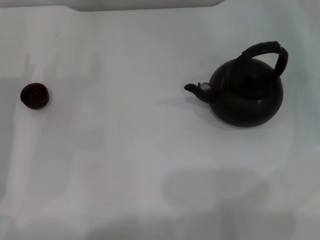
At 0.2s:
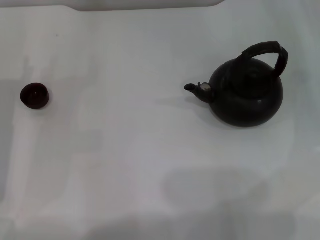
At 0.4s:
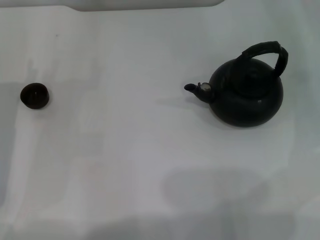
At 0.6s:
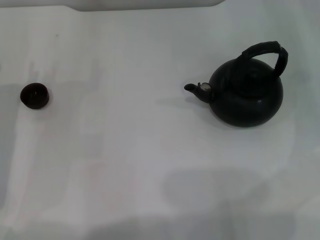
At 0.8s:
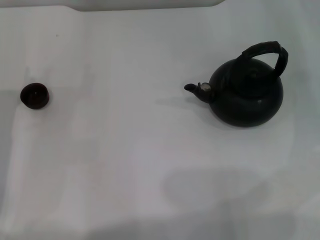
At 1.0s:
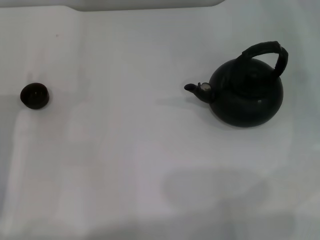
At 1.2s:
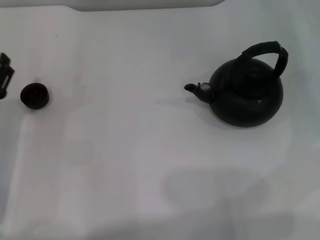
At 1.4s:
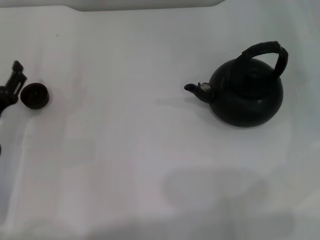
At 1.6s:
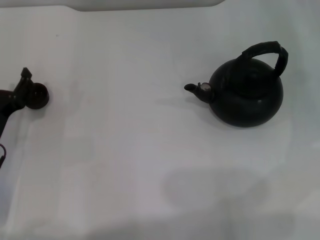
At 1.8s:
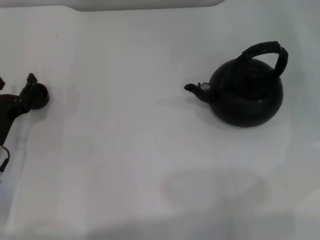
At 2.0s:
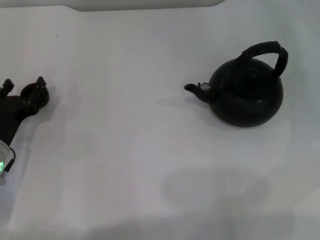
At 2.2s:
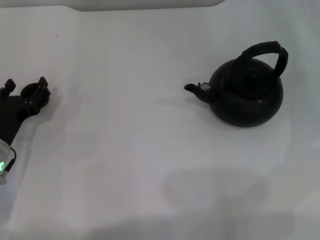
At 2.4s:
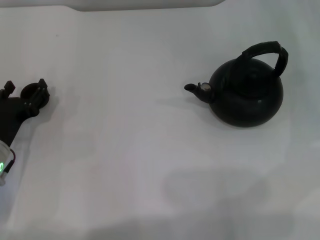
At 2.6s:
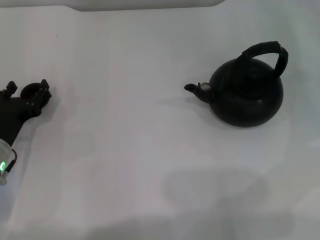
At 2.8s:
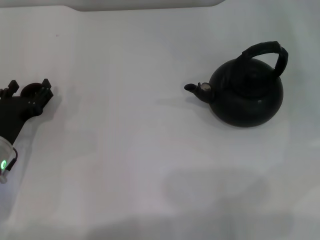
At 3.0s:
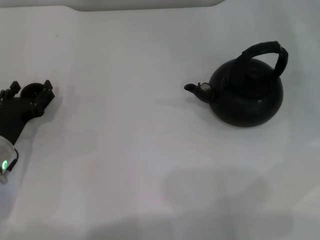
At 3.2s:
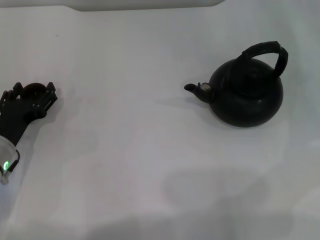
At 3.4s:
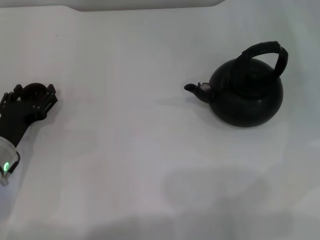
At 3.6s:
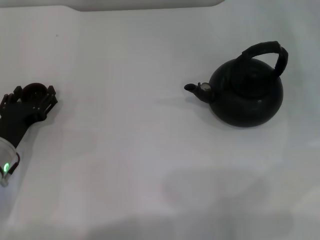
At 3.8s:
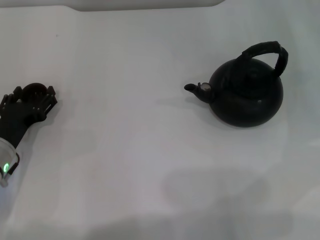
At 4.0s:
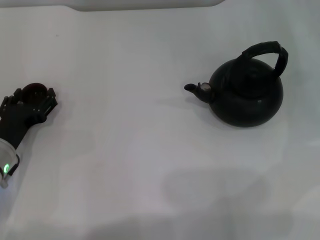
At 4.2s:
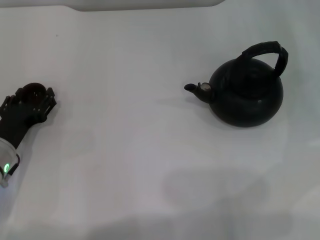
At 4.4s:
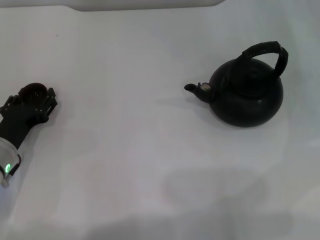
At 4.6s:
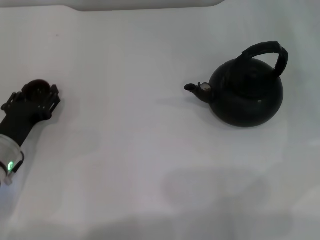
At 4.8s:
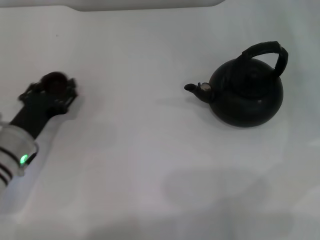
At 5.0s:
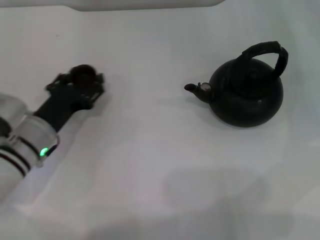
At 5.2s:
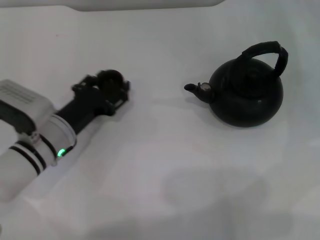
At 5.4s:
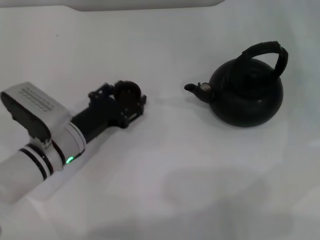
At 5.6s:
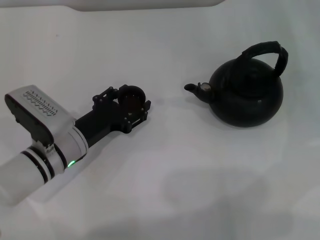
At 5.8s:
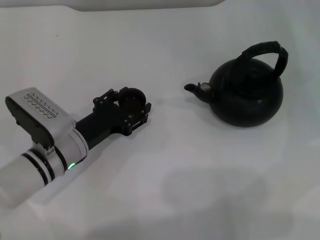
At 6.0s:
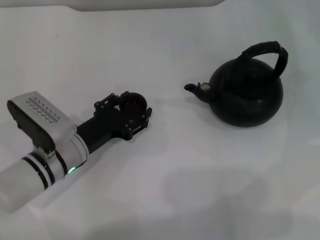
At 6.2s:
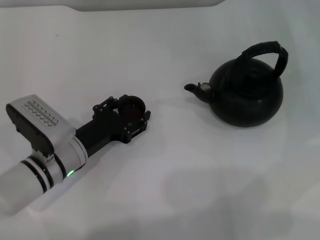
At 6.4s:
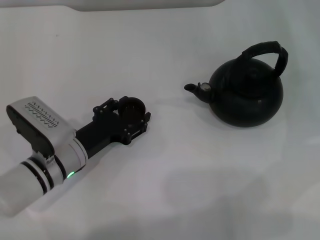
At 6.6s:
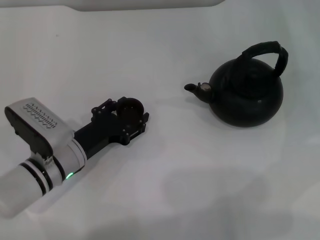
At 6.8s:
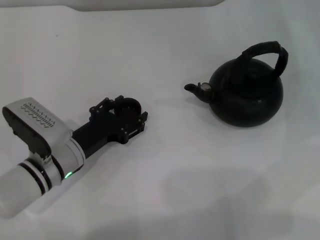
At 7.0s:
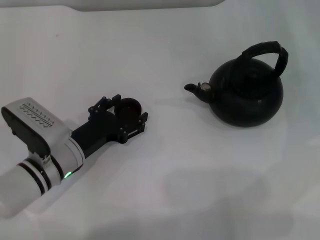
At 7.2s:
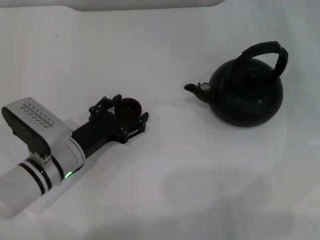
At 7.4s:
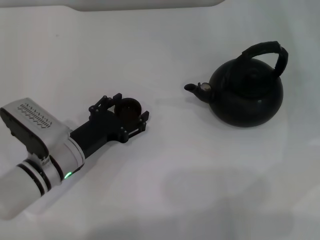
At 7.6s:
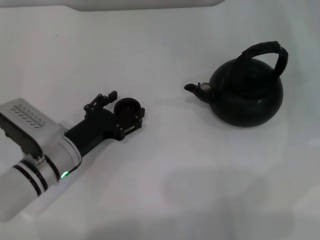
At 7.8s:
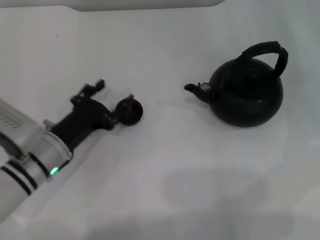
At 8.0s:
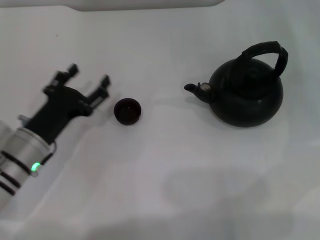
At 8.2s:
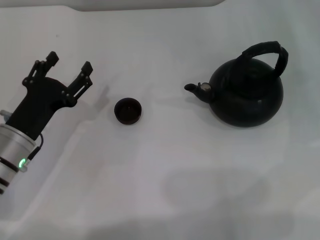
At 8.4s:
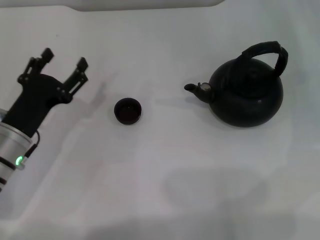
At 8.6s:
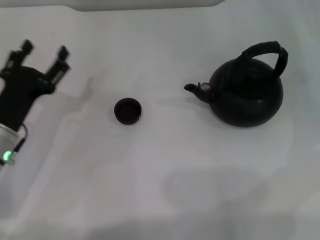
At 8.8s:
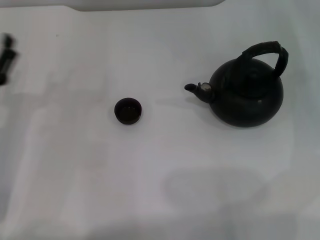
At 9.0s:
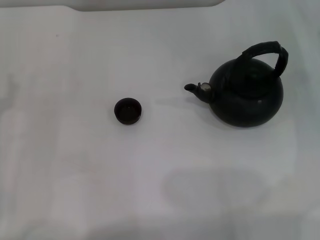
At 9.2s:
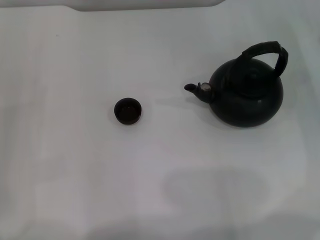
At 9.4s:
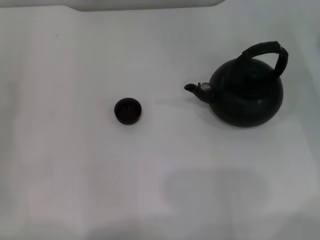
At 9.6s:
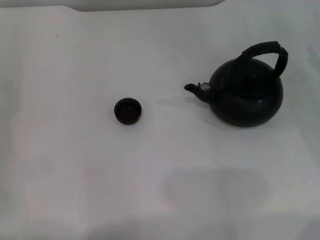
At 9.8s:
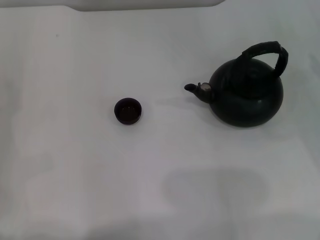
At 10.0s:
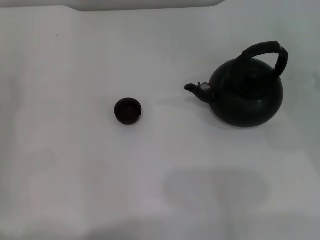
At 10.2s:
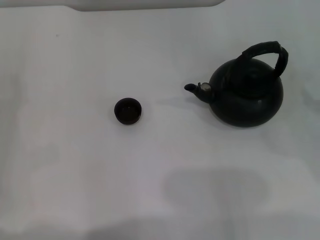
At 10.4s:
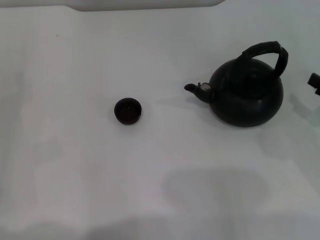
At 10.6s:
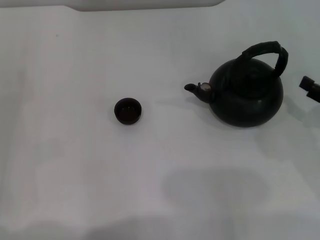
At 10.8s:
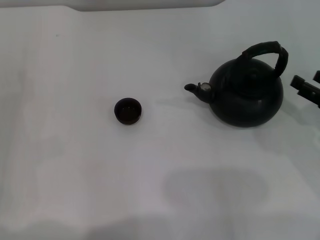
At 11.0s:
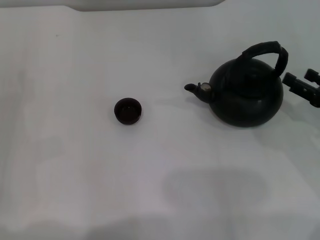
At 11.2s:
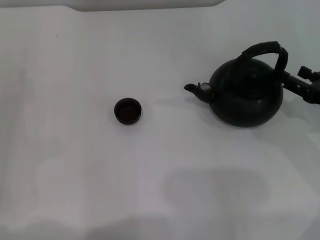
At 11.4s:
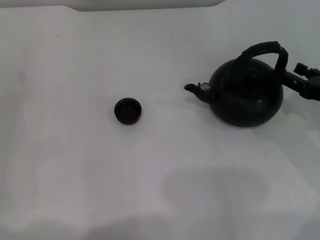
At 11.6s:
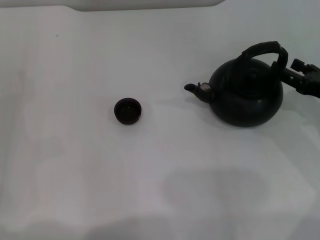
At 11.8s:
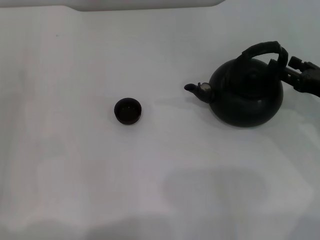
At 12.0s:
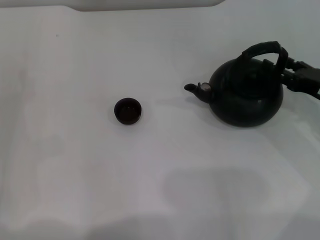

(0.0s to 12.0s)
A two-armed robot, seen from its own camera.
Task of the whole recording: Grasp the handle of the teapot with one hand and pour tea into the teacup.
Step, 0.0s - 4.6s: Pick up the teacup with the left gripper.
Step, 4.8s - 8.2s: Place the teacup in the center of view with the left gripper.
0.0s - 1.6s: The left gripper shifts by roughly 5 cm.
1.6s - 3.0s: The grippers make only small movements.
3.0s - 4.4s: The left gripper closes up.
4.4s - 6.0s: The left gripper travels to the right by some 10 cm.
6.0s - 7.6s: The left gripper opens its fingers.
7.6s - 9.0s: The left gripper heads to the left, covering some 15 cm.
10.4s - 12.0s: The right gripper is displaced forward by about 5 cm.

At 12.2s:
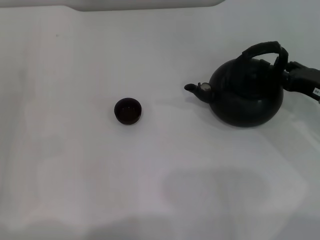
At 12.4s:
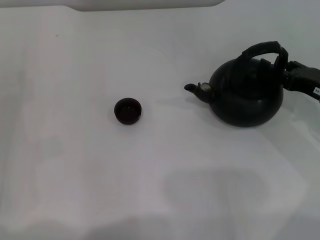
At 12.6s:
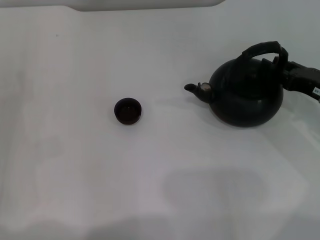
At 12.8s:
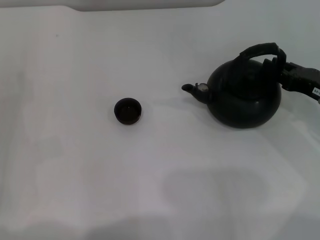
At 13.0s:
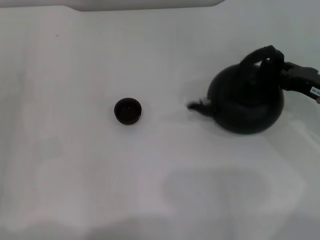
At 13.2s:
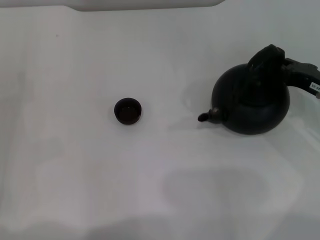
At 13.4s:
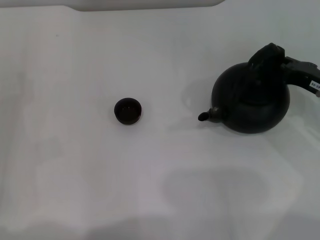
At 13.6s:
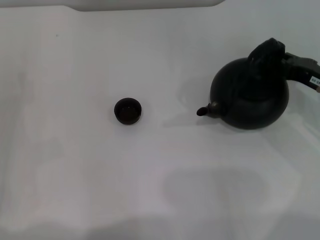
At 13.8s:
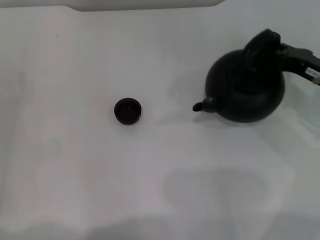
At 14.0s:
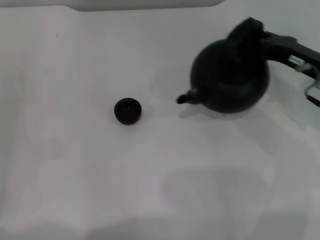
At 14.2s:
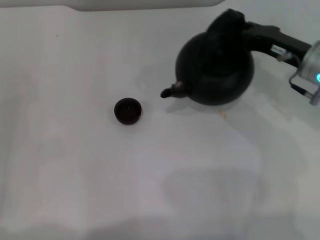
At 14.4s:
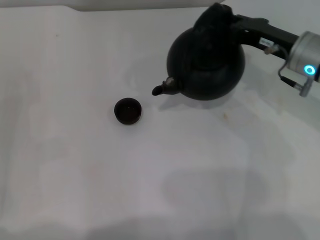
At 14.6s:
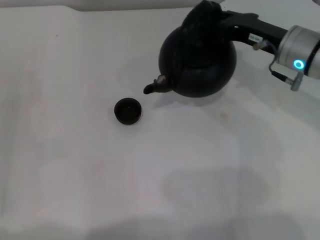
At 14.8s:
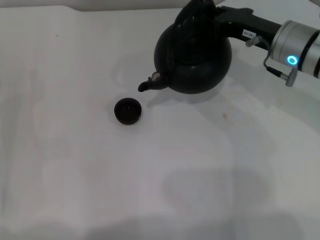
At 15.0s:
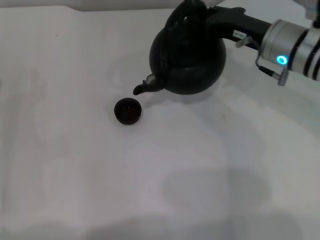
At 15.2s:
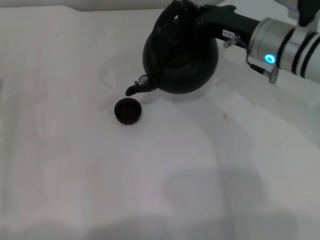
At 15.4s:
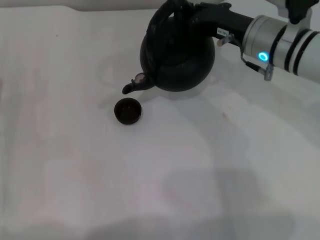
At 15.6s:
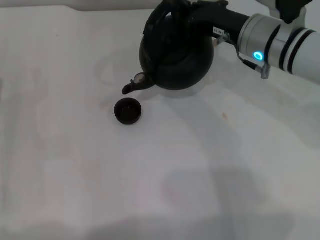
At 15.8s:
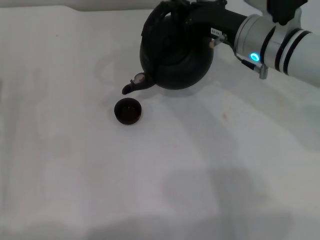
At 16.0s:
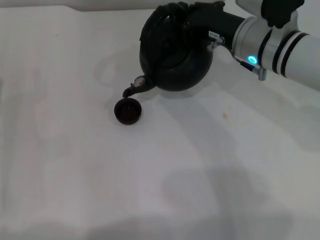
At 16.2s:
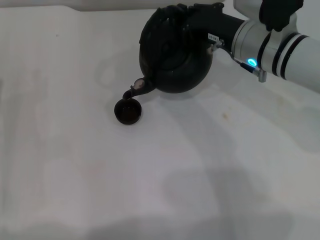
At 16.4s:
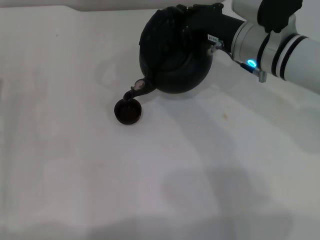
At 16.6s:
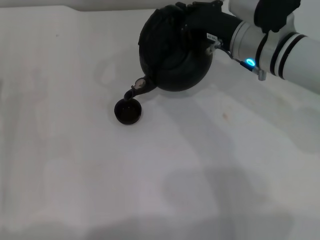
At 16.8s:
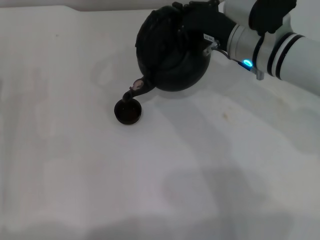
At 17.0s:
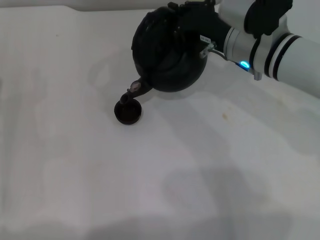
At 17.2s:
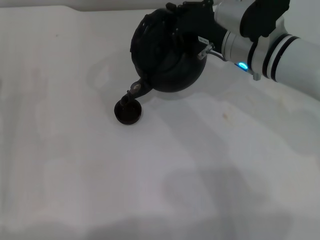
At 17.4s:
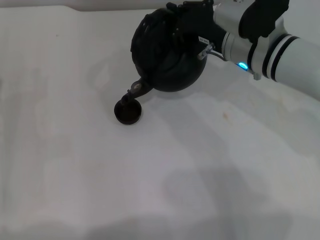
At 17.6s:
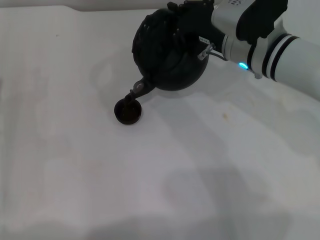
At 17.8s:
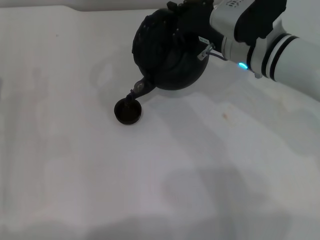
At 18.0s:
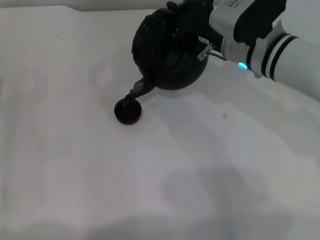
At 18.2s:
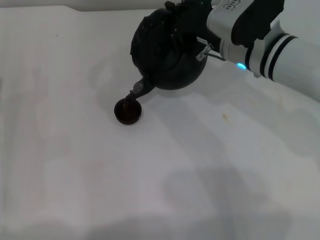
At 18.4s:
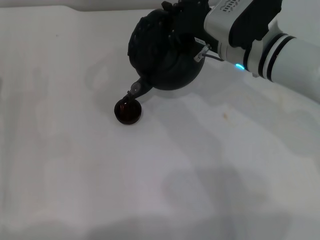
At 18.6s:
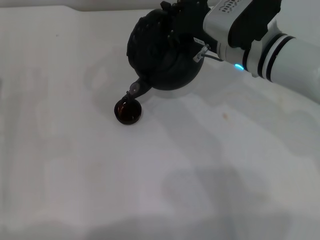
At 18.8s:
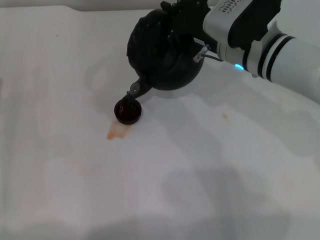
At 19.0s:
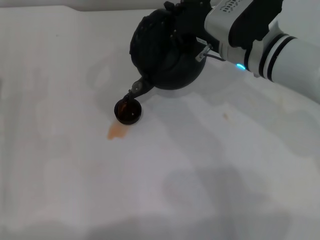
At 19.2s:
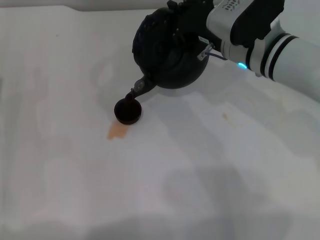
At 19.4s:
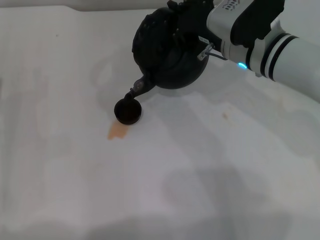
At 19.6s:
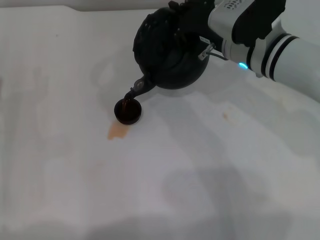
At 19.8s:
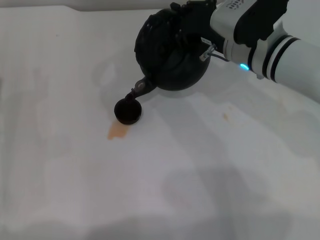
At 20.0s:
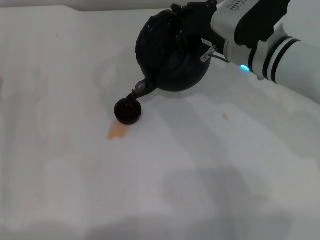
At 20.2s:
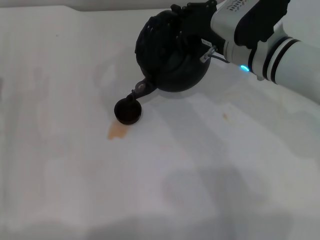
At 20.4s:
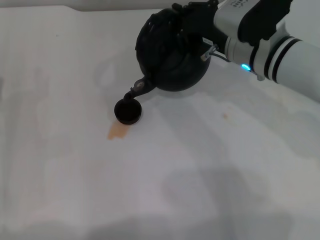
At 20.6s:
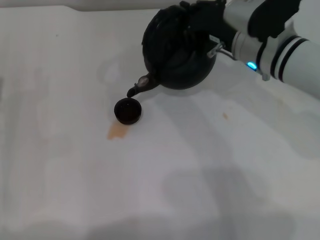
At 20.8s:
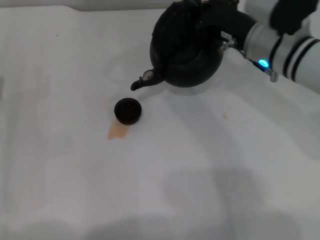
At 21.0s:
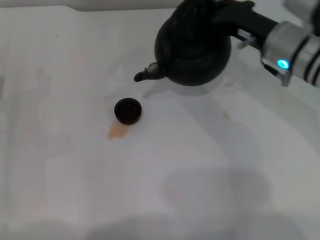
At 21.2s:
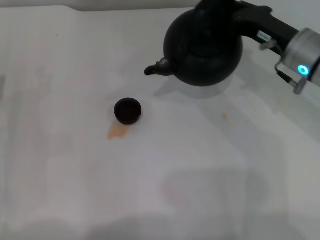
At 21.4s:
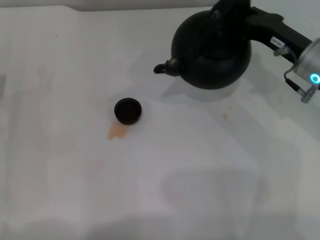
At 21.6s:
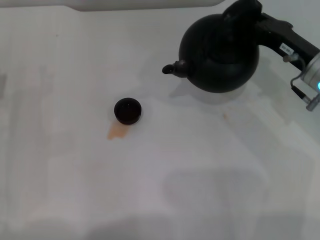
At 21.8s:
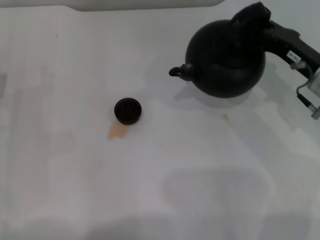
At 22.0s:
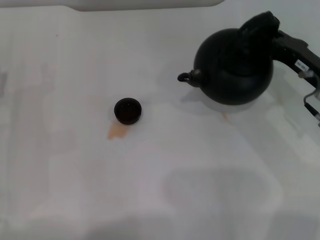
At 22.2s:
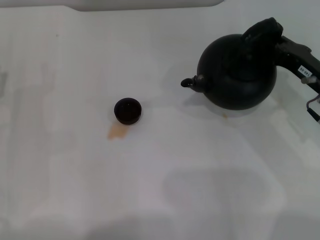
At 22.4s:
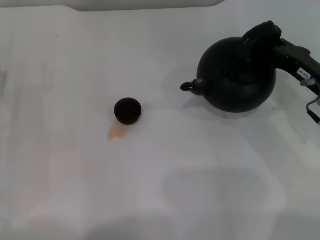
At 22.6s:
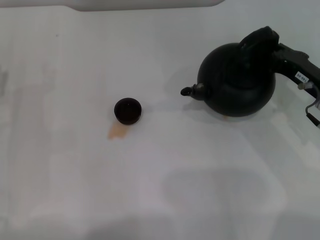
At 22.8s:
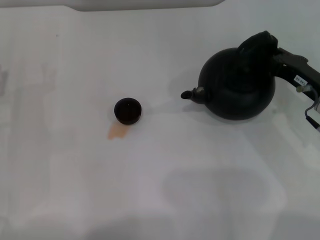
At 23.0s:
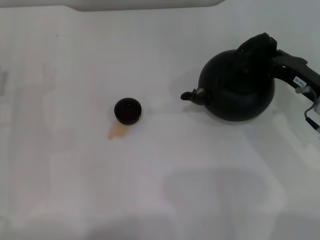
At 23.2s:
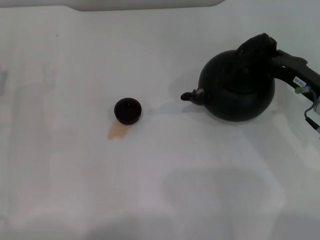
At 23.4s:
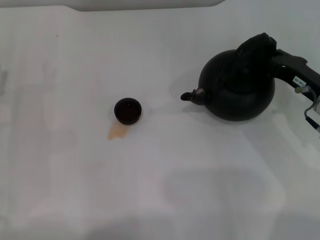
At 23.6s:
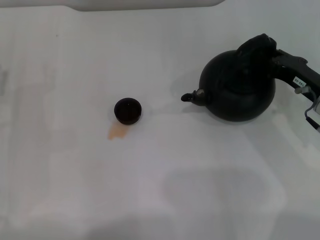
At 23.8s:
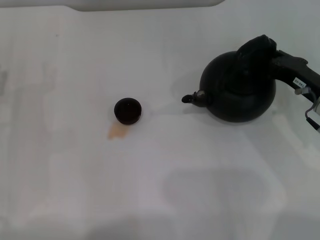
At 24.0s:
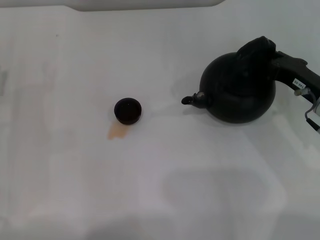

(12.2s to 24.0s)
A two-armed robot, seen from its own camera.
Task of the whole recording: Grasp the handle of the teapot with one hand and pour tea into the teacup.
Step, 14.2s - 21.0s: Pour tea into the teacup with the right gripper.
12.2s - 13.6s: The right gripper closes.
13.6s - 15.2s: The right gripper shifts roughly 15 cm to the left, forward and upward.
15.2s - 16.6s: There are only small adjustments of the grippers.
16.6s - 18.2s: The grippers stay close to where they were, moving slightly.
18.2s - 19.6s: The two grippers keep their place.
19.6s - 21.0s: The right gripper heads to the right, covering about 5 cm.
21.0s - 22.6s: The right gripper heads to the right, backward and downward, covering roughly 10 cm.
22.6s - 24.0s: Both grippers stay about where they are.
